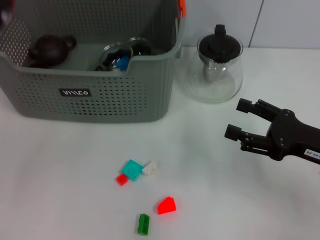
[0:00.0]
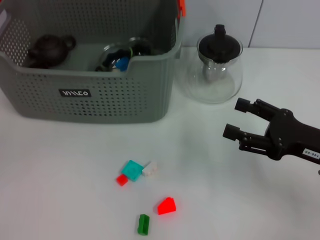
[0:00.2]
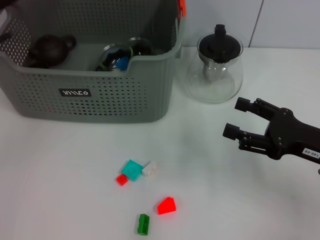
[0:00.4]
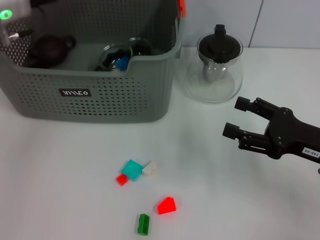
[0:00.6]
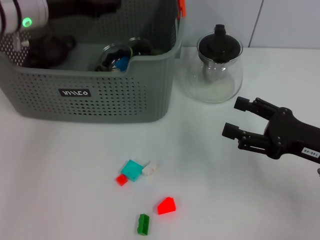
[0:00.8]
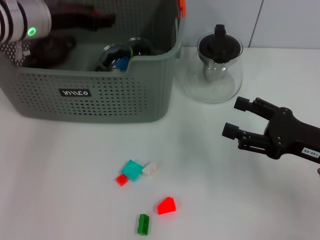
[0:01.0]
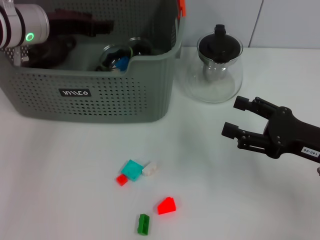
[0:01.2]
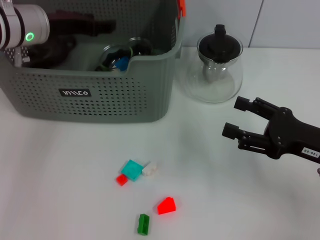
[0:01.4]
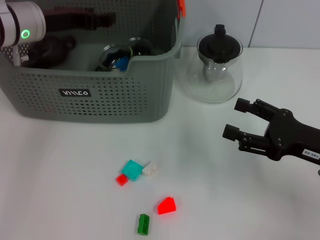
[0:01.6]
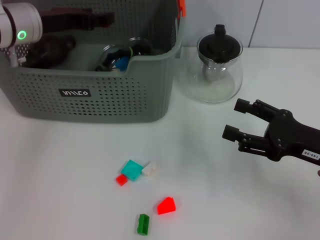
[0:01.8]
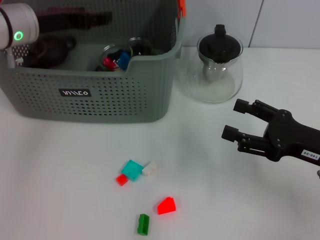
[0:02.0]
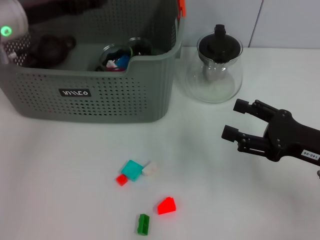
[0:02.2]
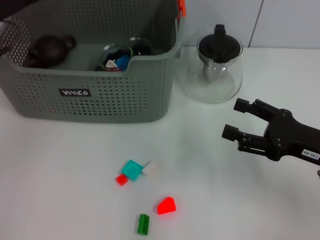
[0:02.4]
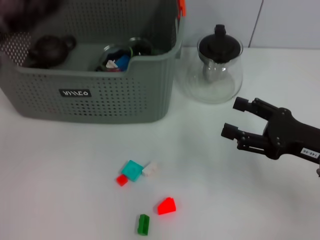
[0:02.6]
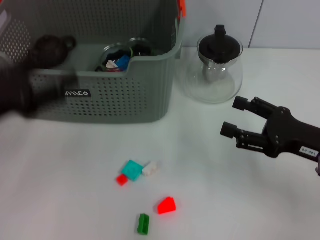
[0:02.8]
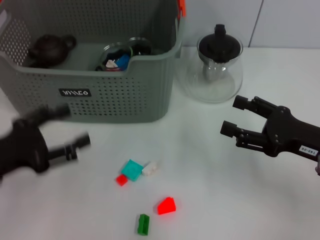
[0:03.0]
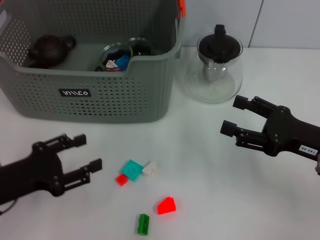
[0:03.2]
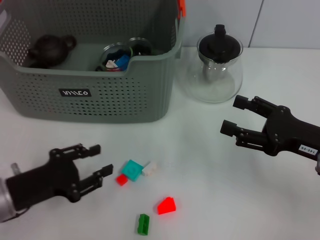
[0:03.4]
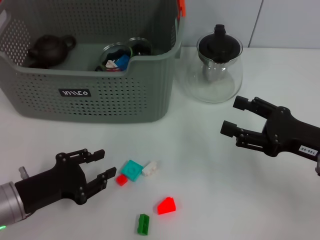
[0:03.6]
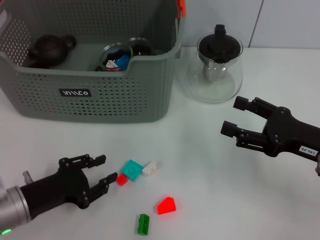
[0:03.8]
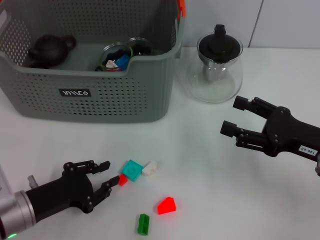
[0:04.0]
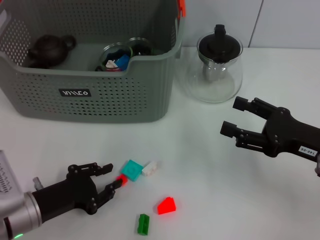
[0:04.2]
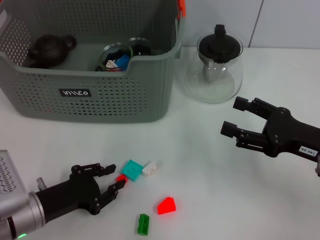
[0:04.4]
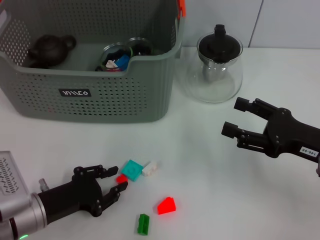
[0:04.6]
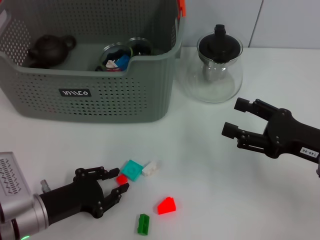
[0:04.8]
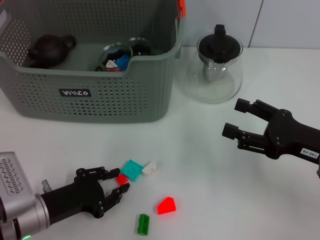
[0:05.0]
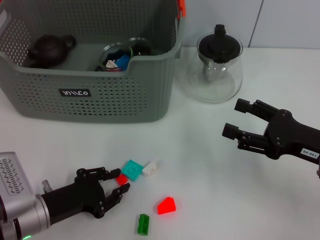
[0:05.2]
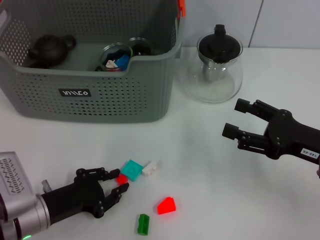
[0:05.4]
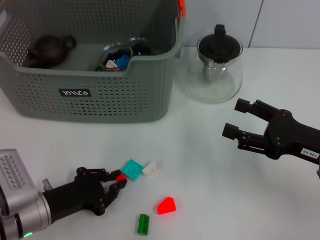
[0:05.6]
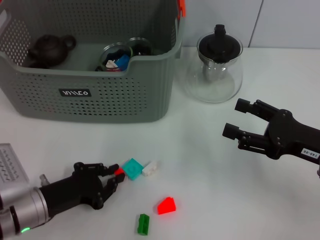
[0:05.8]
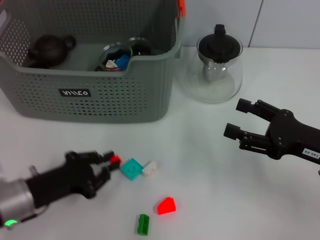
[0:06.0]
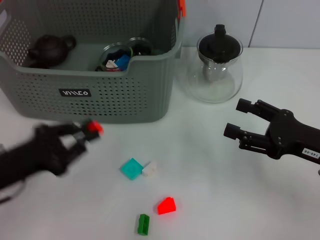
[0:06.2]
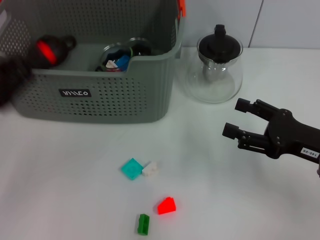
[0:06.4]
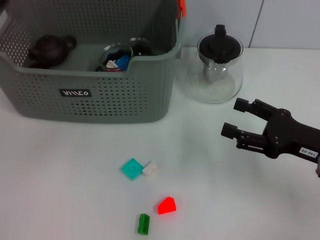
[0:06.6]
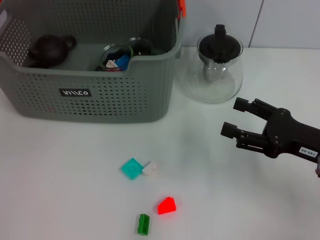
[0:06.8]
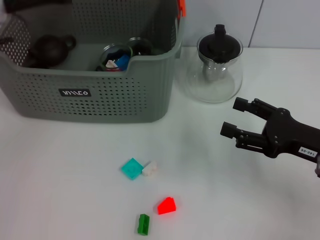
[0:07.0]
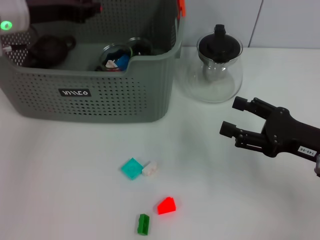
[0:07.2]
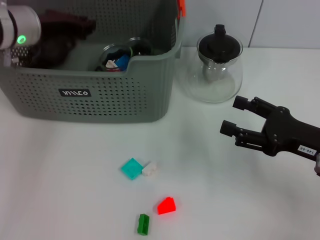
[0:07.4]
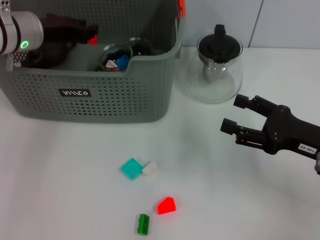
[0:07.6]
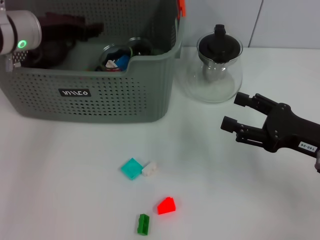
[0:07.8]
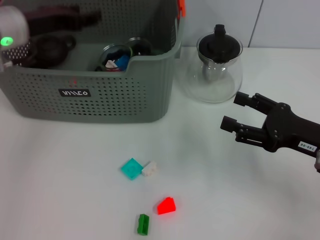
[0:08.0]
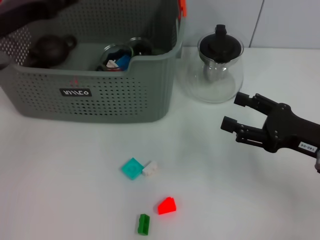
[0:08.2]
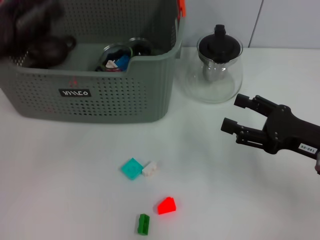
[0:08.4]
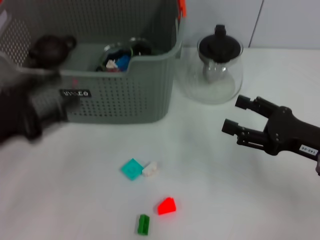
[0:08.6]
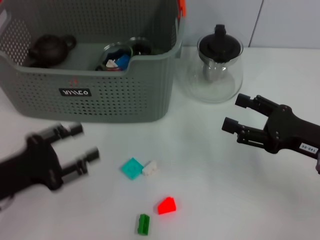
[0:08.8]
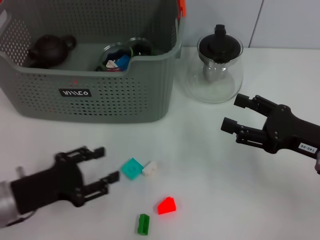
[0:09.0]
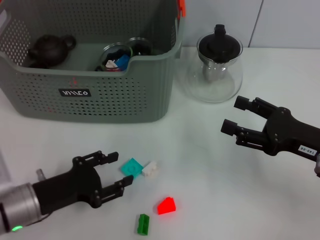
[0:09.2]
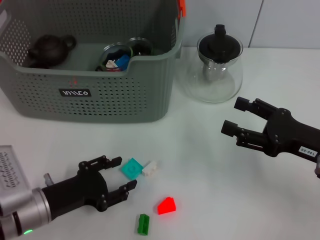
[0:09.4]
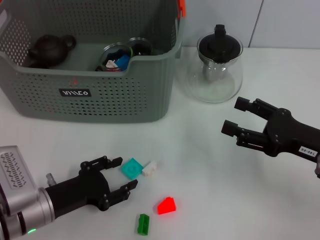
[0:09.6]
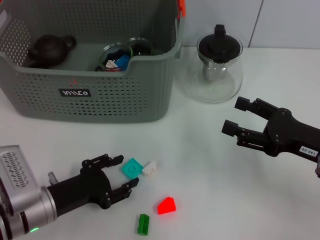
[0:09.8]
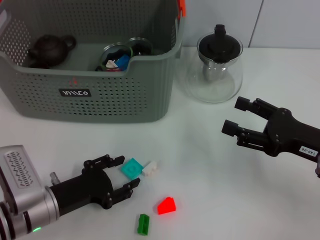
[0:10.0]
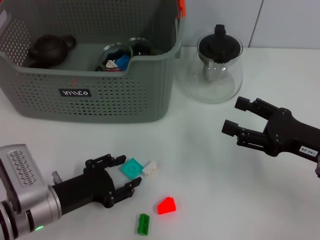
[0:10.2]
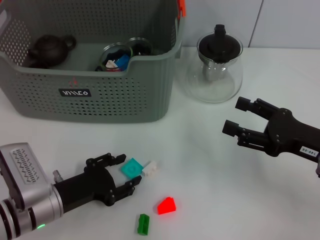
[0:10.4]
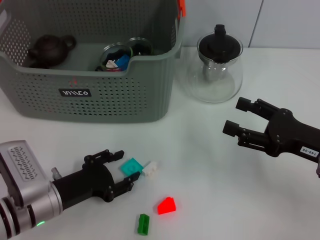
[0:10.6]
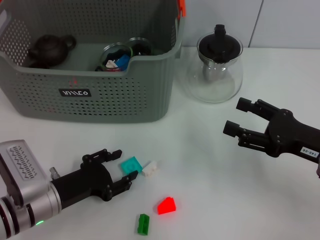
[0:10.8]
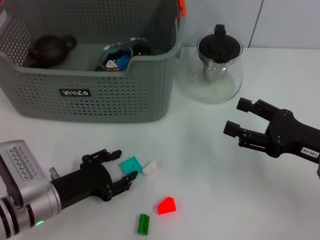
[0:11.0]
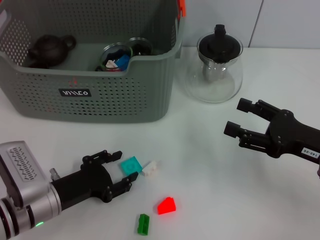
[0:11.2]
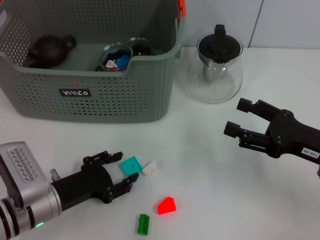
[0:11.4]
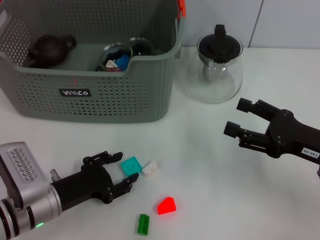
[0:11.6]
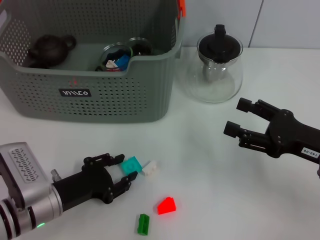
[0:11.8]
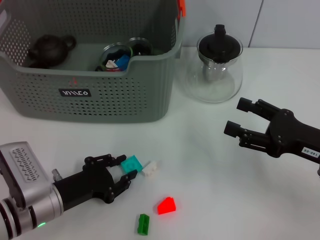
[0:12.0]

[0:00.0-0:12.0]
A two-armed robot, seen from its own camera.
Task of the whole recording: pick up the teacup on the table and place it into the storage bin, pick up the block on the table and place it into the storage bin.
Step, 0.0 to 2.4 s: Place the red block in the storage box with left gripper.
Step, 2.8 to 5.6 s: Grasp the orange block with left gripper.
Step, 5.8 to 8.4 s: Place the orange block in the storage box with left gripper.
0.0 to 1.6 s: The left gripper travels forward and to the right by about 20 cm.
1.6 to 3.0 s: The left gripper goes approximately 20 cm backward.
3.0 to 4.4 s: The left gripper travels downward and to the right by approximately 10 cm, and closes its fingers.
4.4 to 6.0 s: The grippers stay close to where they were, moving slightly.
6.0 to 7.6 s: The left gripper is displaced forward and upward by roughly 25 cm.
7.6 to 9.0 s: The left gripper travels backward and downward by approximately 25 cm, and opens its fingers.
9.0 to 10.4 s: The left gripper ends up roughly 5 cm from where it was.
10.4 to 12.0 s: Both grippers stay put.

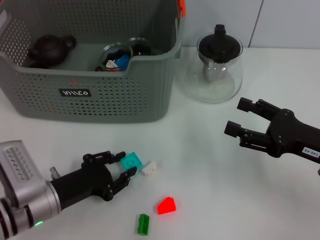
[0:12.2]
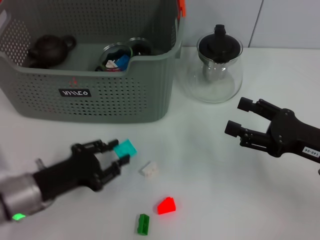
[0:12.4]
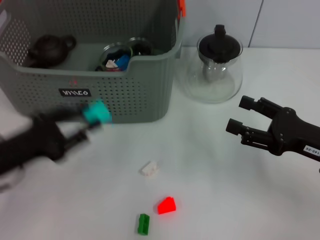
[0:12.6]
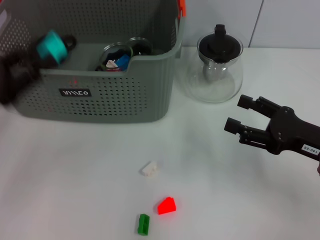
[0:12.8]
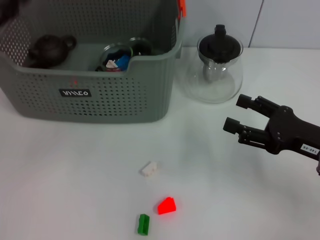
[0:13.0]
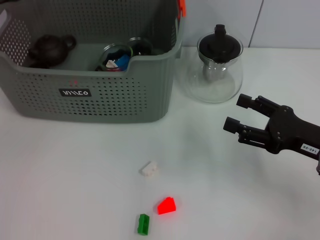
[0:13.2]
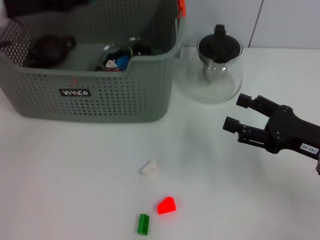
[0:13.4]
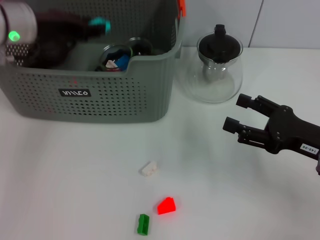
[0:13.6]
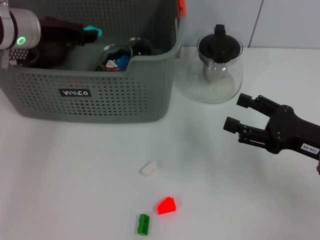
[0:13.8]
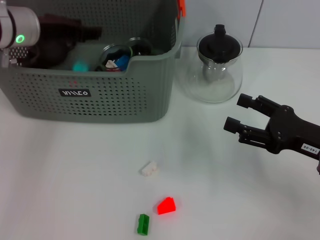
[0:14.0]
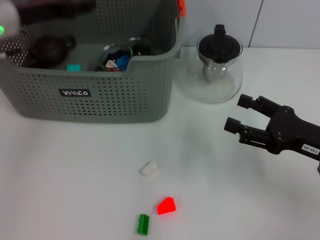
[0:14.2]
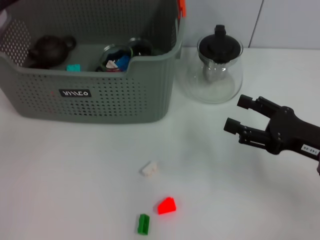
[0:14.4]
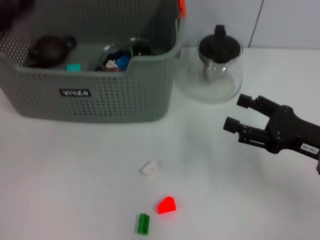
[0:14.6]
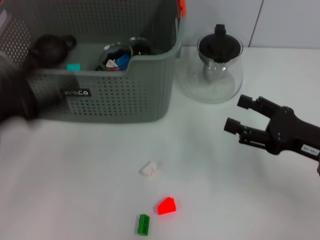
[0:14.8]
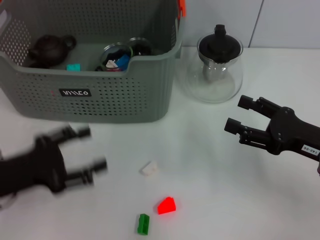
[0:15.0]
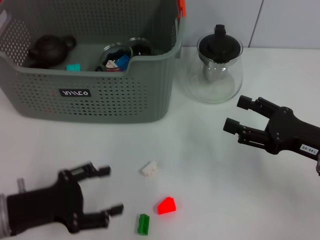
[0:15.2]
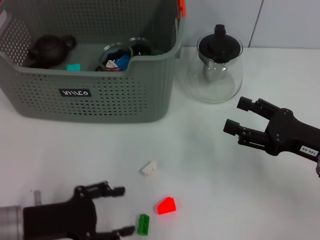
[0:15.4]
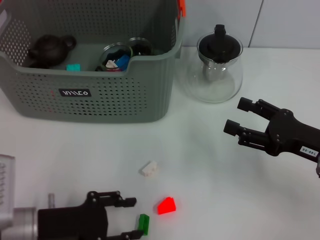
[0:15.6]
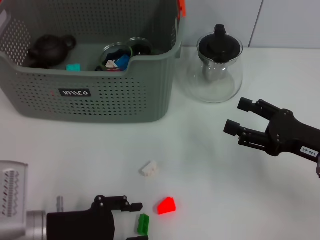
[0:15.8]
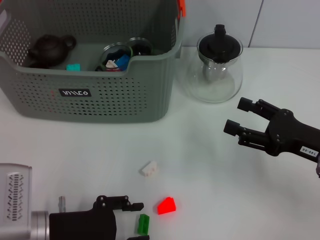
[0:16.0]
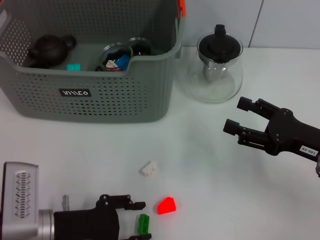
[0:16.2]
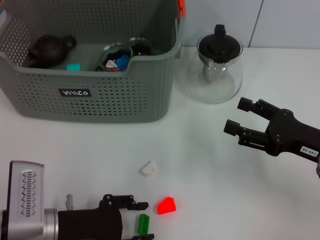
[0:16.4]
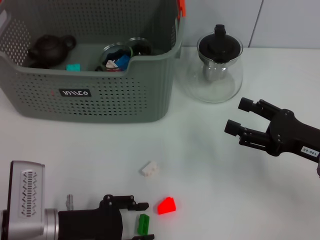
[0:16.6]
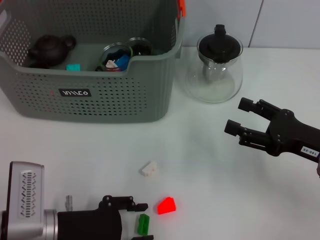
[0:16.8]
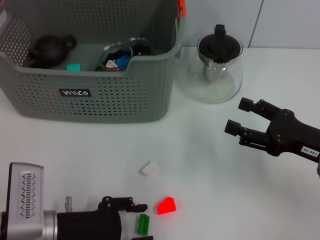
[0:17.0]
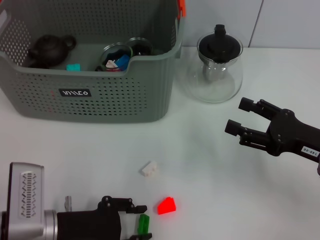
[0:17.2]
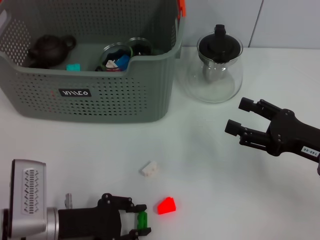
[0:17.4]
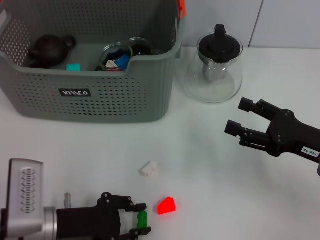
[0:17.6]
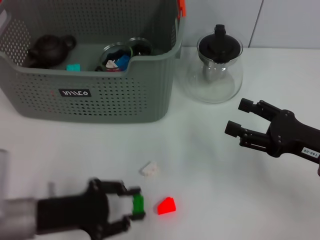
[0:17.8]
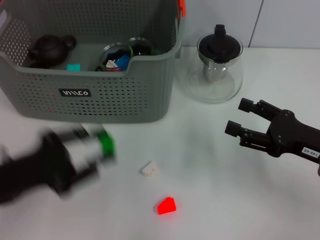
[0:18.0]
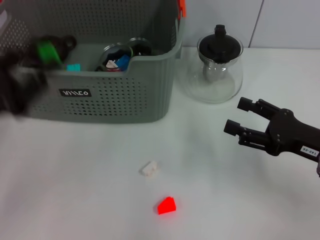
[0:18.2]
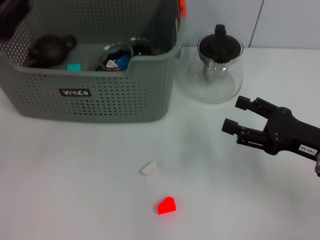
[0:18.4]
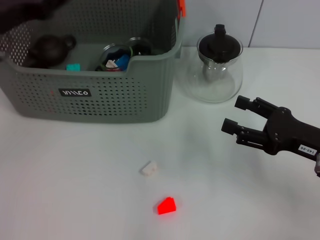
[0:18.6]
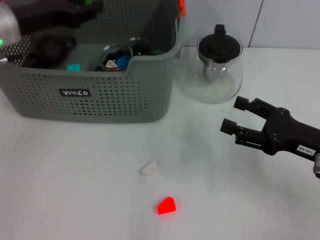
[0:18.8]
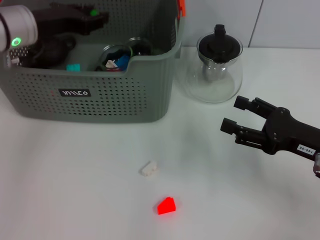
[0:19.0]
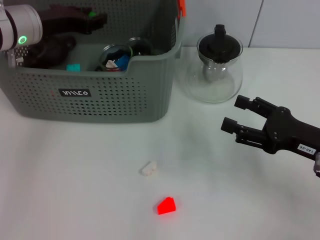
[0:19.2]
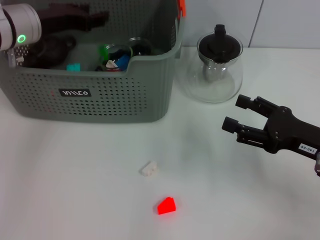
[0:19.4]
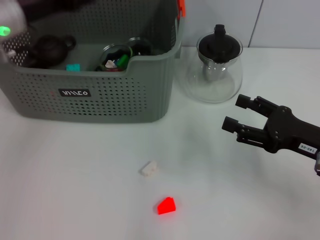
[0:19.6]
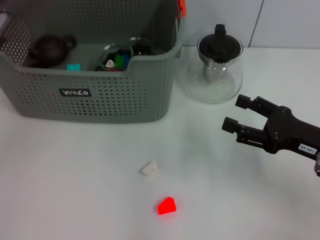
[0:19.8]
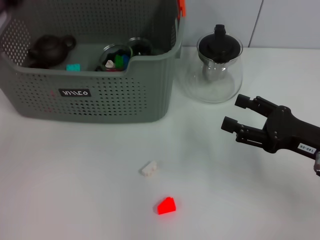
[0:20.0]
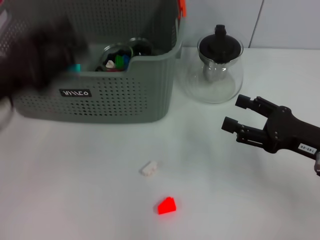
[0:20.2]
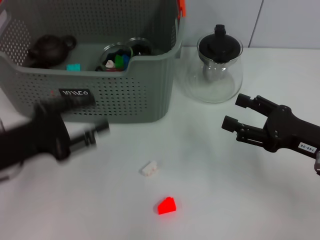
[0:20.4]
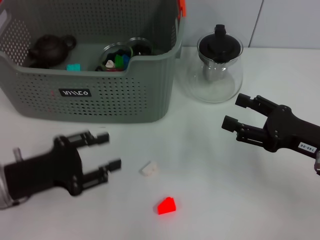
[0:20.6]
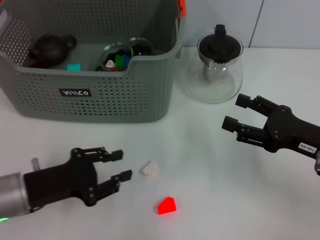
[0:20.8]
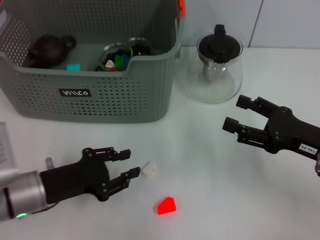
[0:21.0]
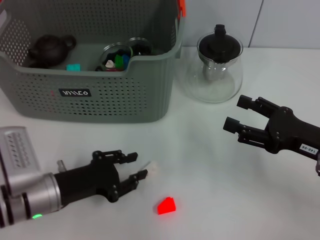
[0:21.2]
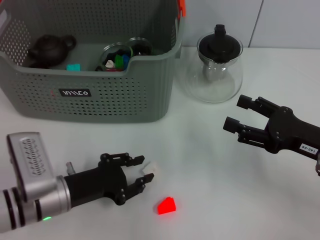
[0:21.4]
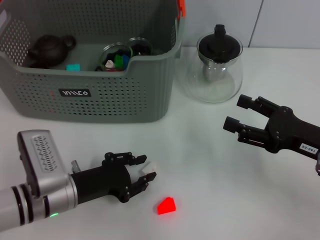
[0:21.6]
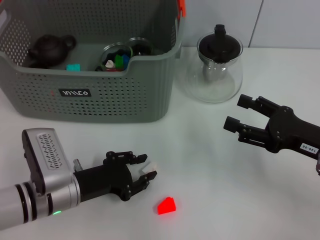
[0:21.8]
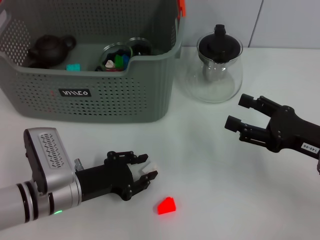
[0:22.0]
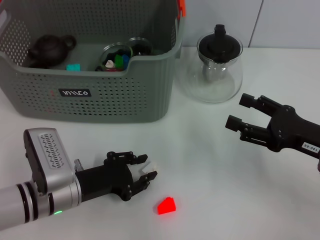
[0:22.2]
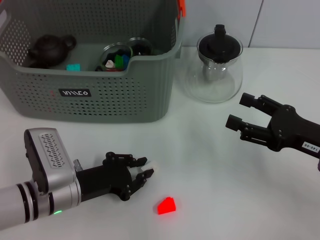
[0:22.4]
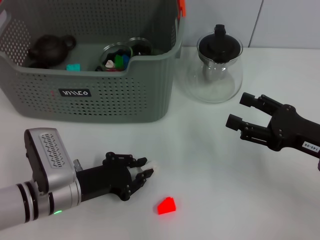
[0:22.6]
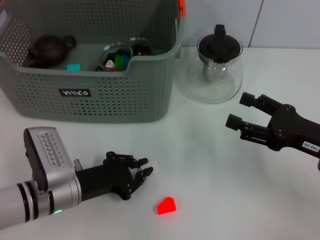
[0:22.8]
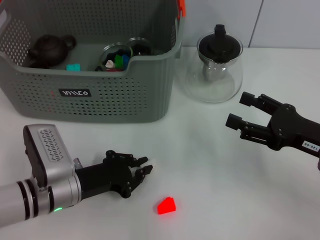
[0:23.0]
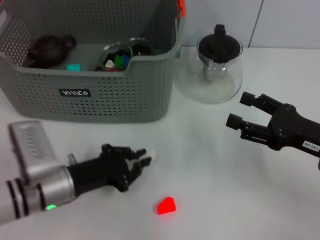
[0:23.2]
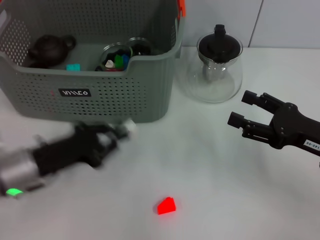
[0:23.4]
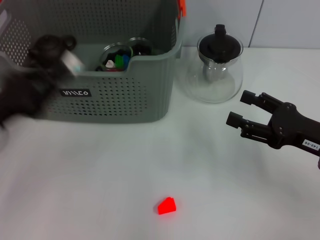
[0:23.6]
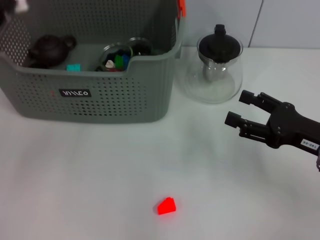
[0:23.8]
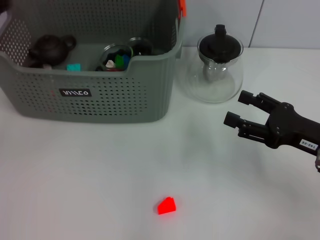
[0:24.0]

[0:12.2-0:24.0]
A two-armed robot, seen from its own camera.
Task of the whole recording: pick up the teacup on the table and place it into the storage bin, pick up the block on the table and place it into the storage bin.
Step, 12.4 to 14.2 s: Place the light blue block in the storage box with left gripper.
Step, 14.6 to 17.6 s: Grasp the green block with left gripper.
Step, 17.8 to 20.2 s: Place the green block in the storage box with left gripper.
Step, 20.4 to 22.8 s: Grasp the white block with left gripper.
12.2 to 13.6 s: The left gripper goes some 25 cm forward and upward.
13.6 to 15.2 s: The left gripper shifts about 25 cm backward and downward, and opens up.
15.2 to 16.6 s: The left gripper moves approximately 5 cm.
16.6 to 18.2 s: The left gripper travels upward and to the left by roughly 15 cm.
18.2 to 19.6 s: The left gripper is displaced forward by some 15 cm.
19.6 to 21.0 s: The left gripper moves backward and downward, roughly 25 cm.
21.0 to 22.6 s: The left gripper ends up roughly 5 cm from where it was.
22.6 to 24.0 s: The left gripper moves upward, to the left and forward, roughly 25 cm.
